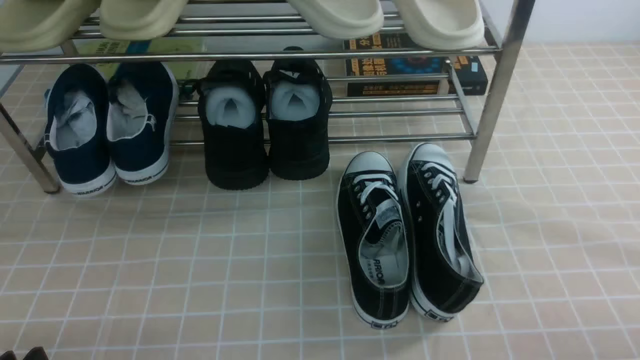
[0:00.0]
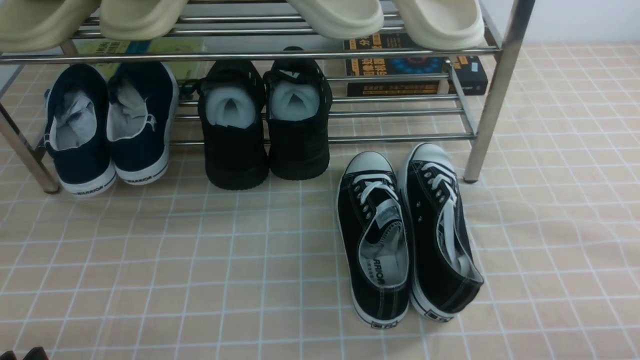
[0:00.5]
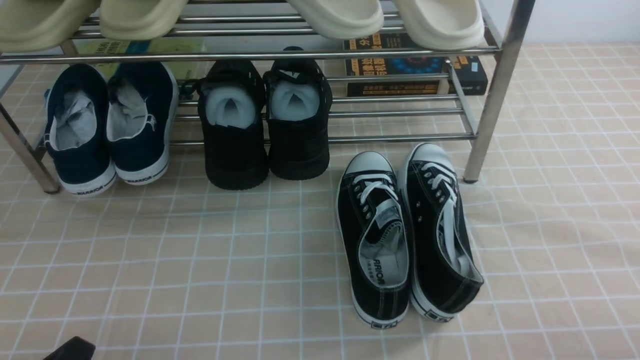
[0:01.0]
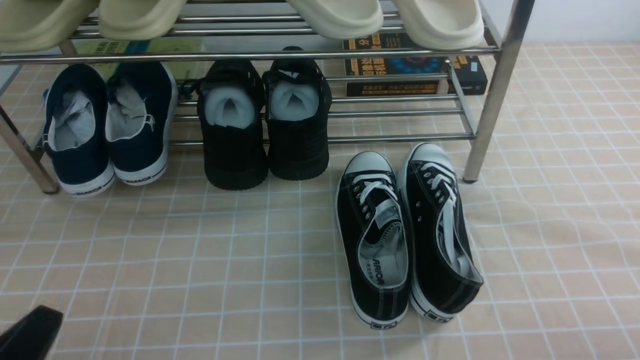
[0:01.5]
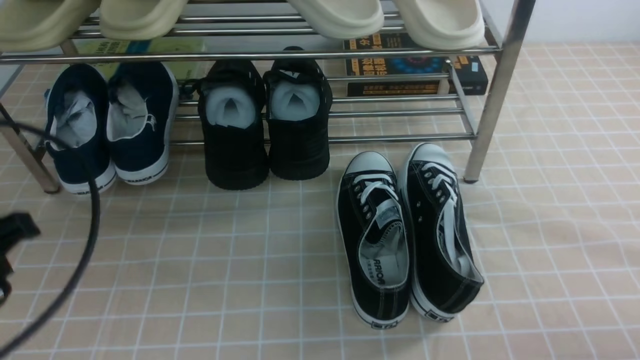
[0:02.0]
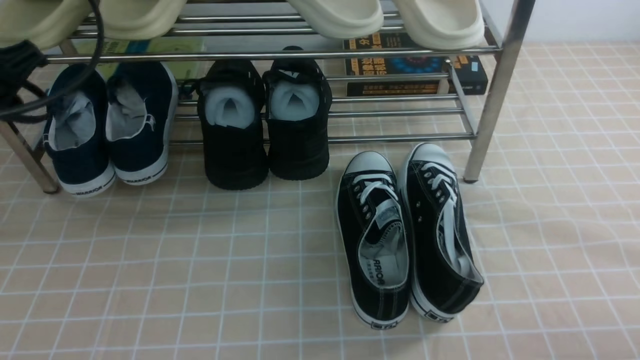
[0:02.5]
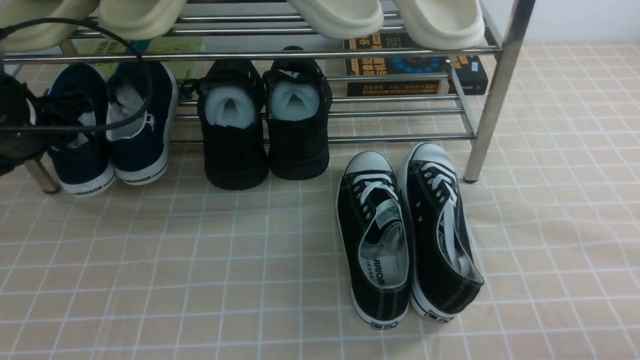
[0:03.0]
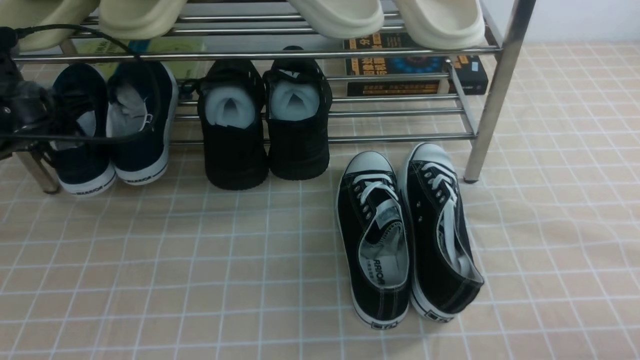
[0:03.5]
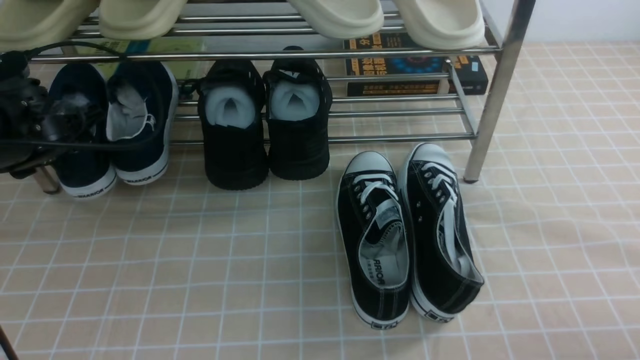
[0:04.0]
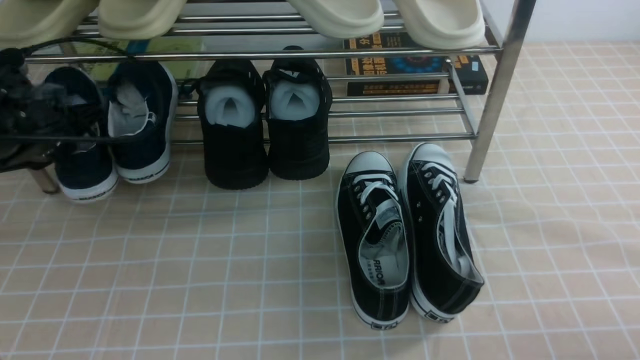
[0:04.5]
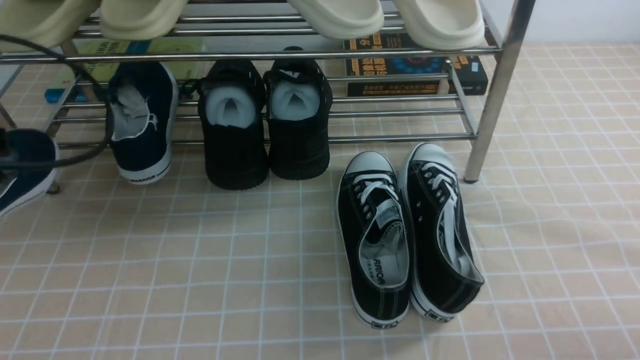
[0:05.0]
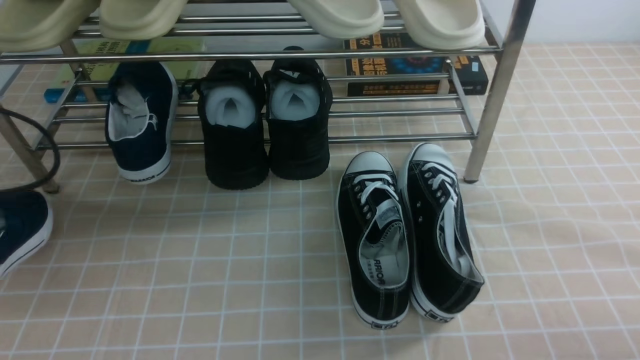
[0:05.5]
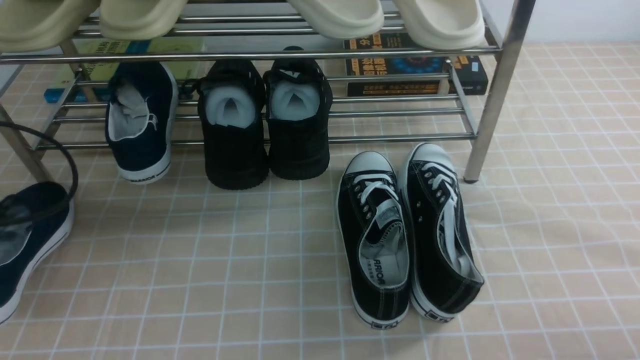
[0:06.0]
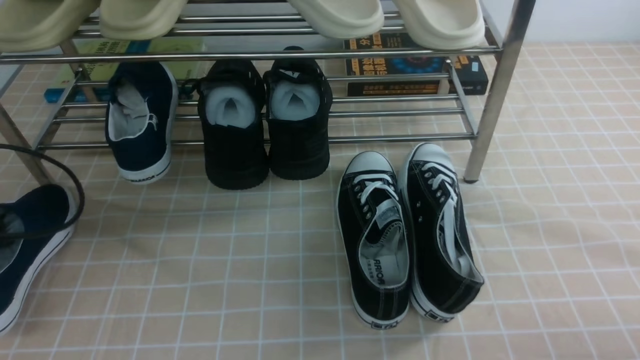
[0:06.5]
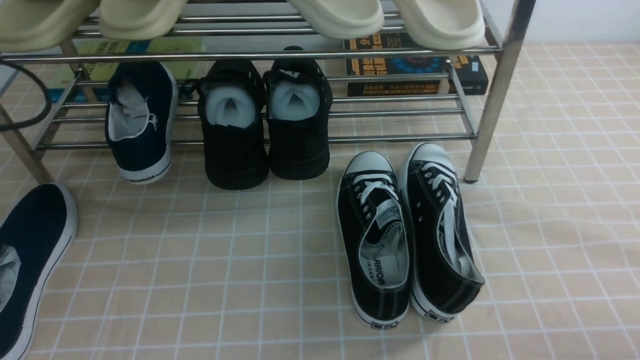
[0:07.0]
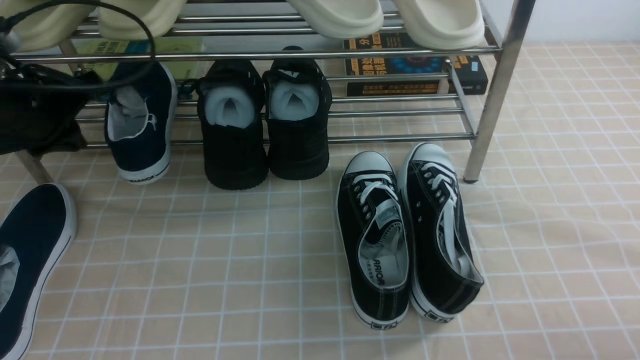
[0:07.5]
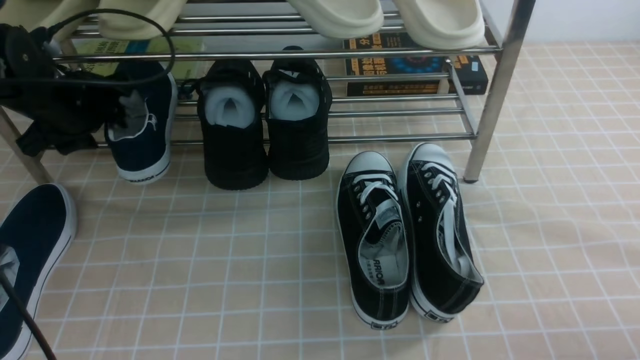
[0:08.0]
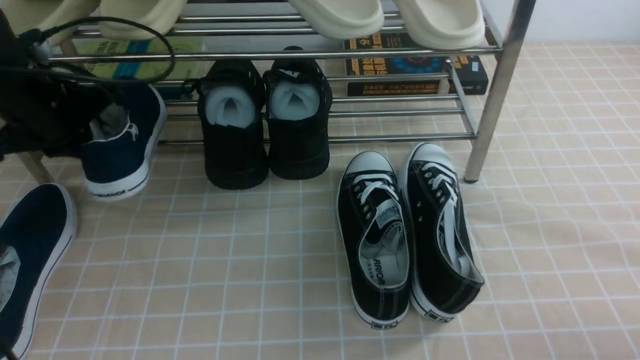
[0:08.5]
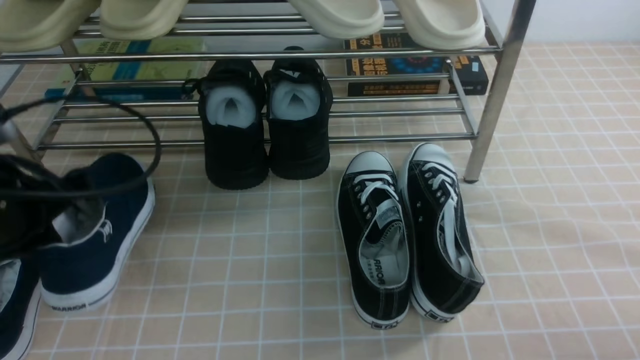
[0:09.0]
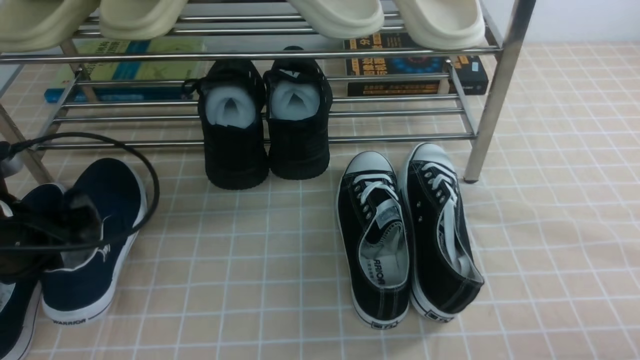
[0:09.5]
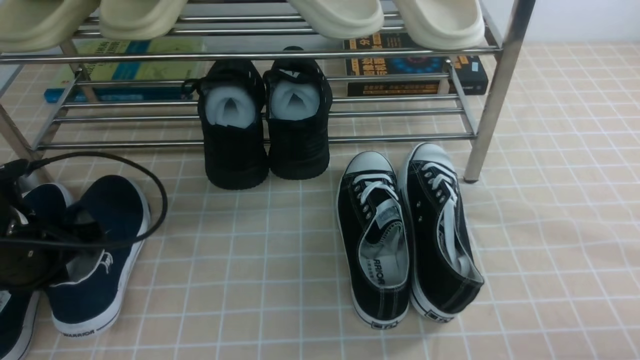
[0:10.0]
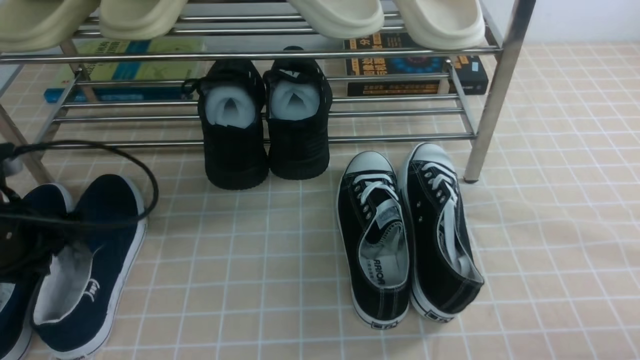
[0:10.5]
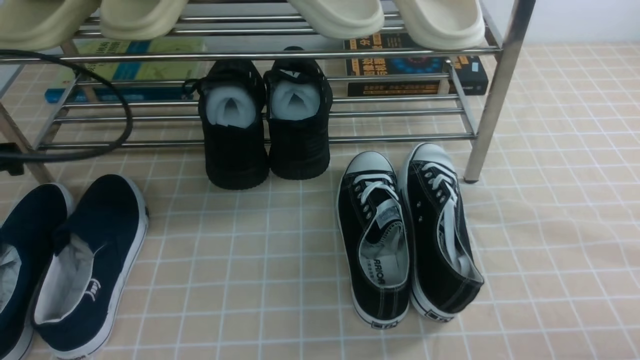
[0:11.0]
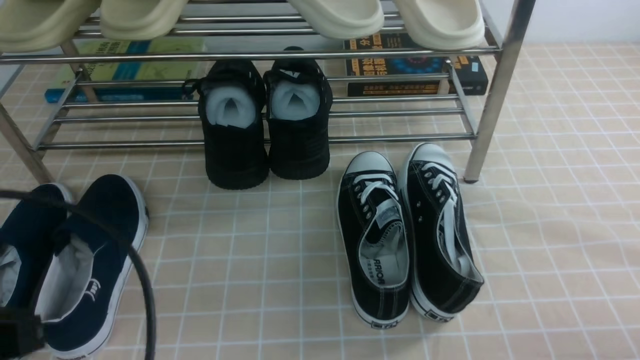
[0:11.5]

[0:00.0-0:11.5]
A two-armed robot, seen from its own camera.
Step, 0:00.0 to 0:04.0: use the left arm to clamp a shoe on the left side of the shoe rack.
Step, 0:04.5 to 0:07.0: Use your left arm to remove the clamped shoe from the shoe rack and put it down.
Step, 0:07.5 to 0:08.0: use the left arm to clamp a shoe on the left side of the shoe rack.
Step, 0:08.5 to 0:10.5: Use your left arm to remove the clamped shoe from the shoe rack and put it down.
0:00.0 to 0:02.0: The left gripper heads upward and forward, covering approximately 20 cm, and closes its fingers.
0:02.0 to 0:04.0: The left gripper heads forward and downward, covering some 25 cm, and opens.
0:04.0 to 0:06.0: The left gripper moves backward and to the left, some 15 cm, and closes.
0:06.0 to 0:07.5: The left gripper is displaced forward, to the right and upward by approximately 15 cm.
0:07.5 to 0:09.5: The left gripper goes approximately 10 cm backward and downward, and opens and closes again.
0:09.5 to 0:11.5: The left gripper is displaced backward and upward by roughly 15 cm, and opens, then closes once more.

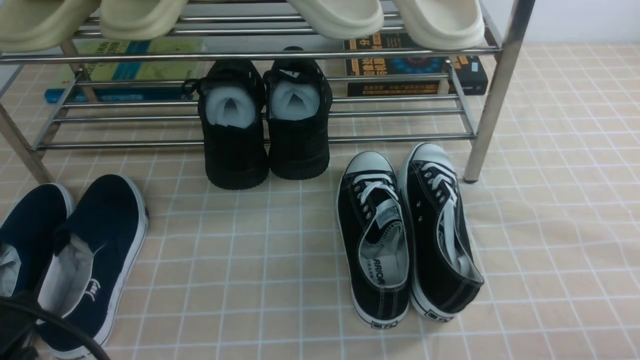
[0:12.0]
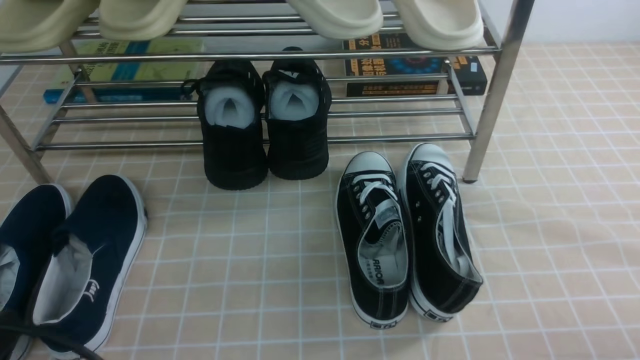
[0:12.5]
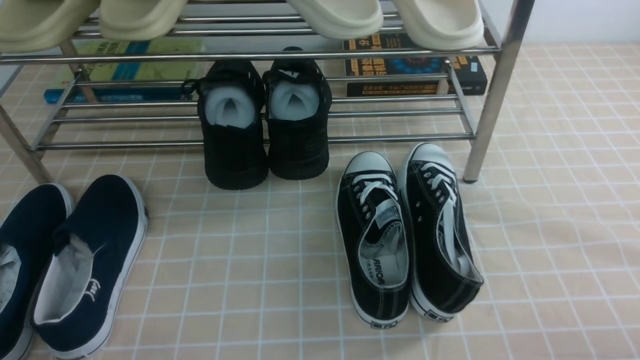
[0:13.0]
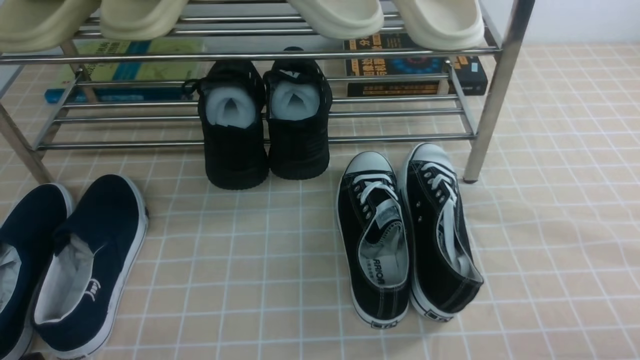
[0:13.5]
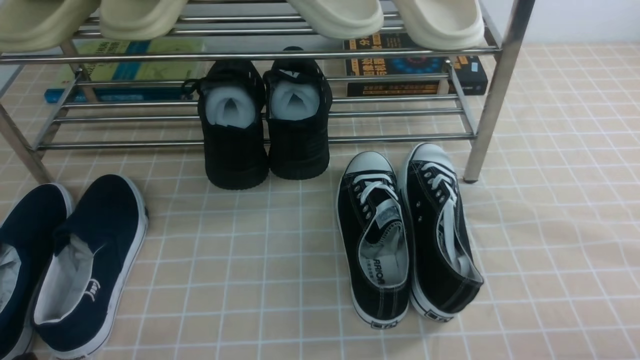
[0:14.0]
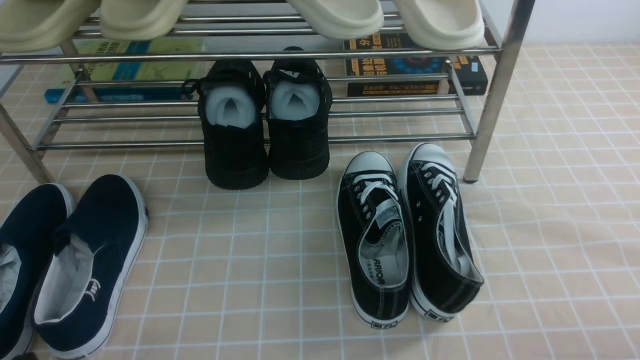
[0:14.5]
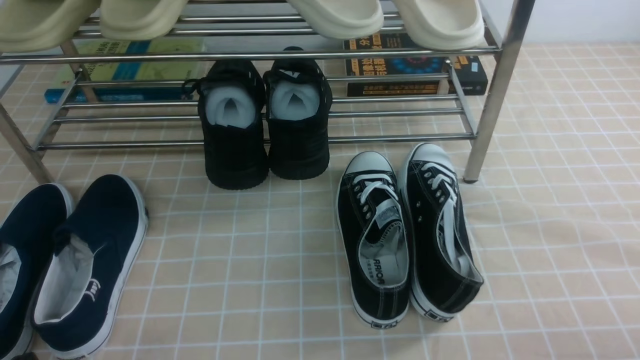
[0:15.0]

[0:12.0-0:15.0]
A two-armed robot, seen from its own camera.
0:12.0 to 0:13.5: The left gripper goes approximately 10 cm downward.
0:13.5 to 0:15.0: Both grippers stay about where they are.
